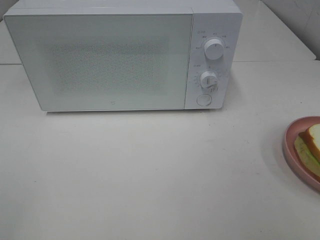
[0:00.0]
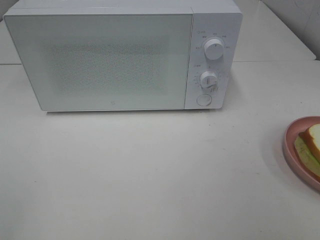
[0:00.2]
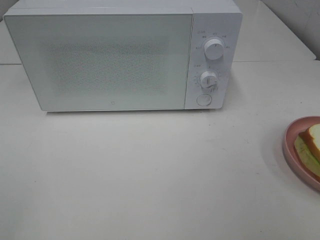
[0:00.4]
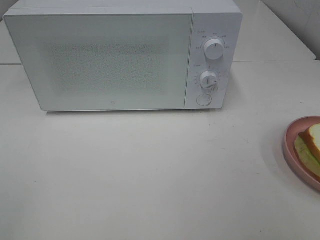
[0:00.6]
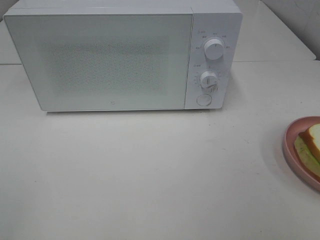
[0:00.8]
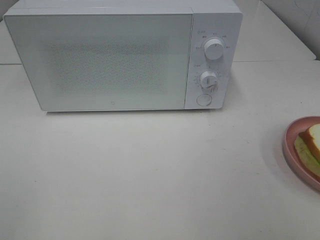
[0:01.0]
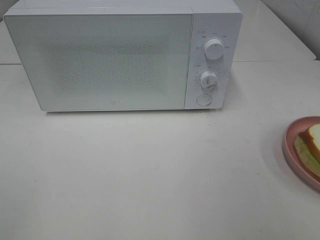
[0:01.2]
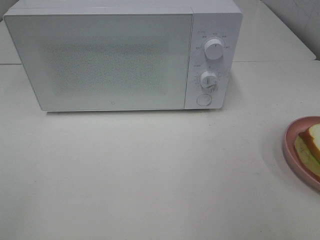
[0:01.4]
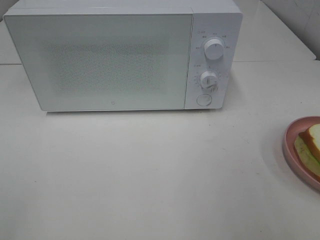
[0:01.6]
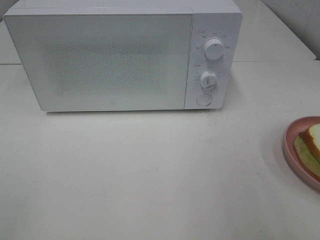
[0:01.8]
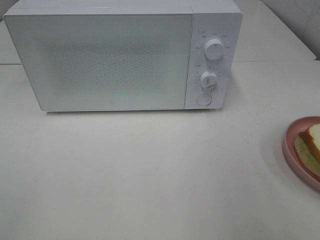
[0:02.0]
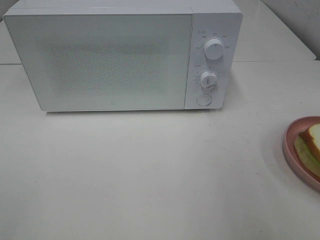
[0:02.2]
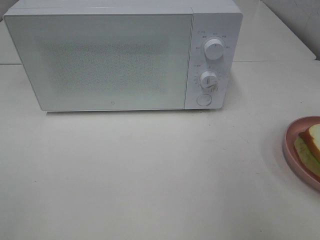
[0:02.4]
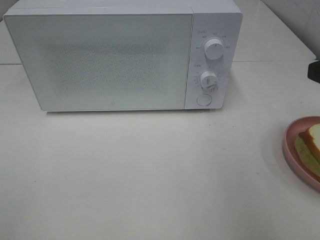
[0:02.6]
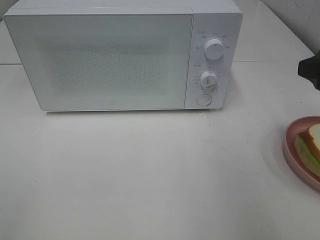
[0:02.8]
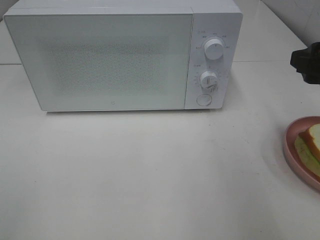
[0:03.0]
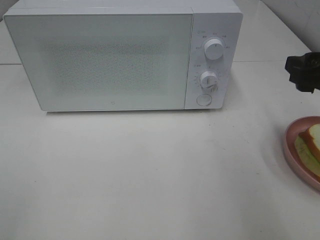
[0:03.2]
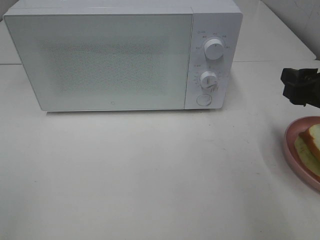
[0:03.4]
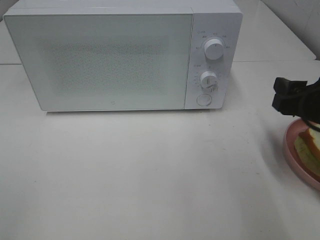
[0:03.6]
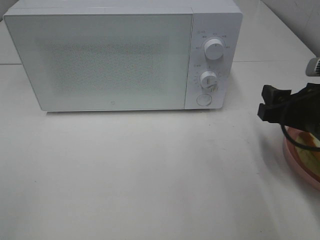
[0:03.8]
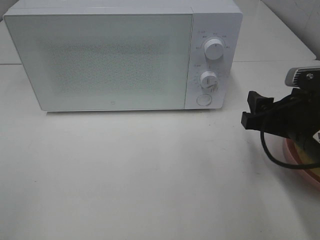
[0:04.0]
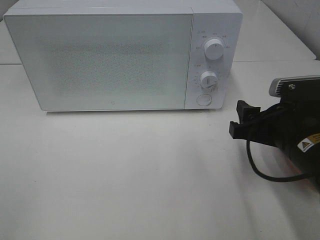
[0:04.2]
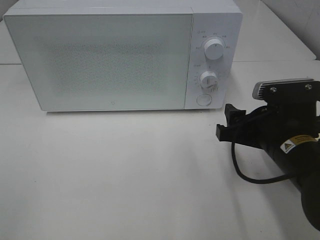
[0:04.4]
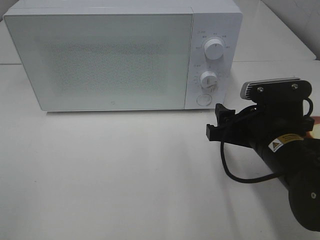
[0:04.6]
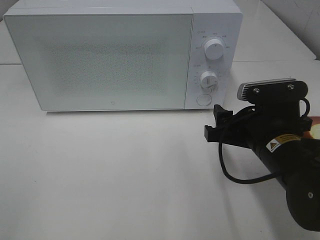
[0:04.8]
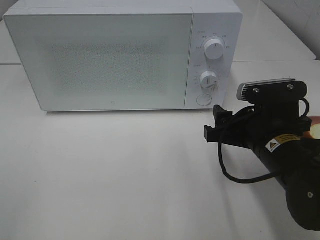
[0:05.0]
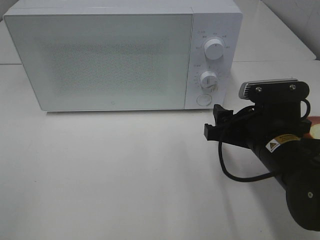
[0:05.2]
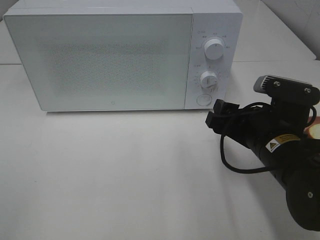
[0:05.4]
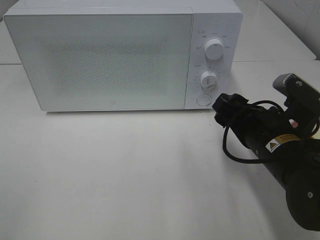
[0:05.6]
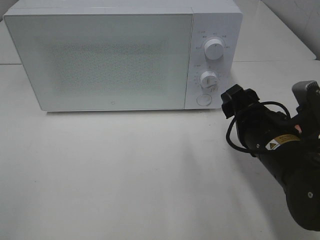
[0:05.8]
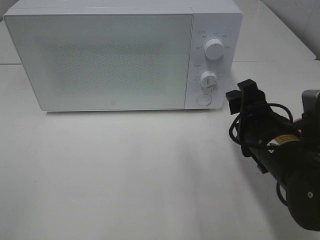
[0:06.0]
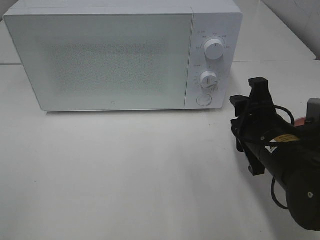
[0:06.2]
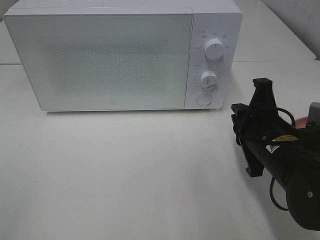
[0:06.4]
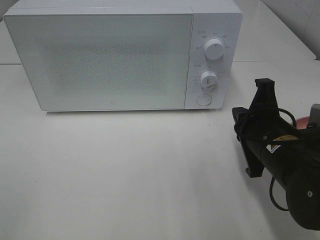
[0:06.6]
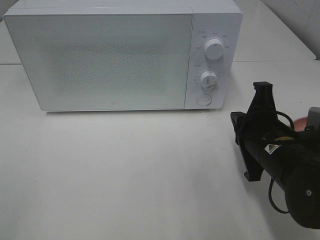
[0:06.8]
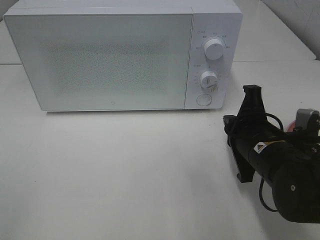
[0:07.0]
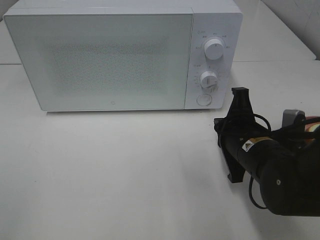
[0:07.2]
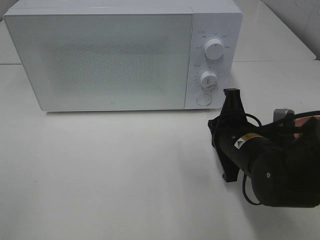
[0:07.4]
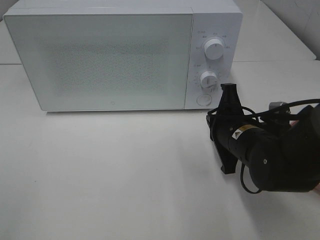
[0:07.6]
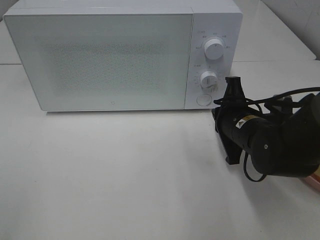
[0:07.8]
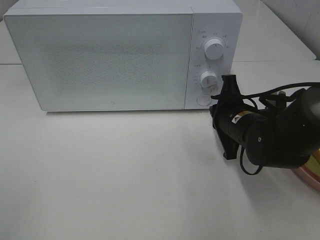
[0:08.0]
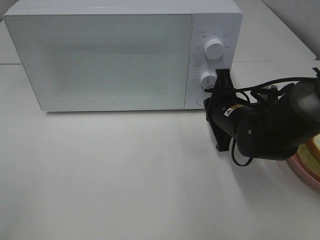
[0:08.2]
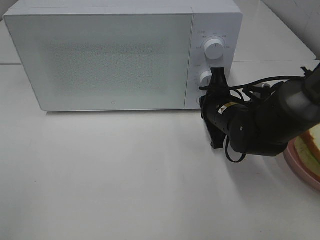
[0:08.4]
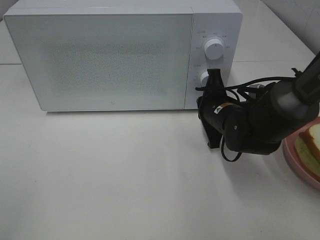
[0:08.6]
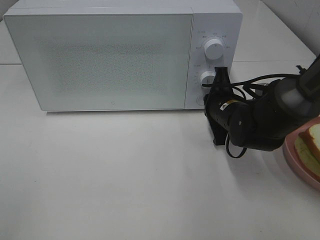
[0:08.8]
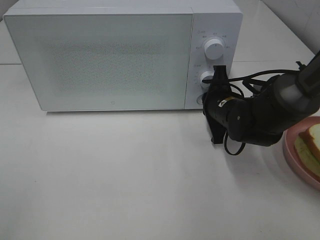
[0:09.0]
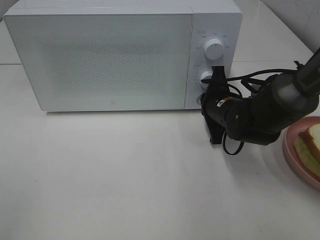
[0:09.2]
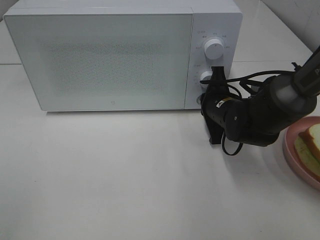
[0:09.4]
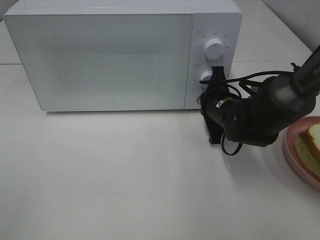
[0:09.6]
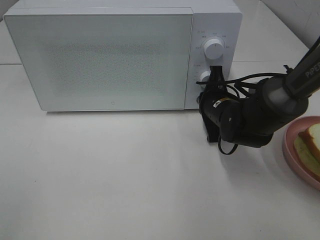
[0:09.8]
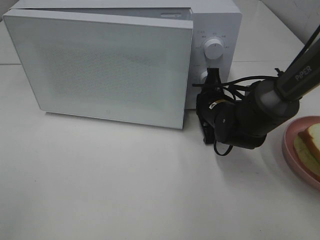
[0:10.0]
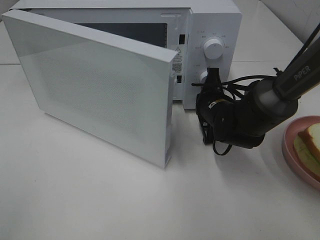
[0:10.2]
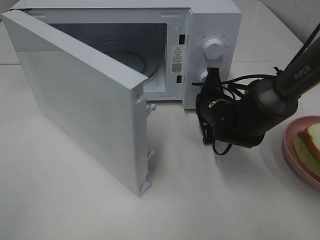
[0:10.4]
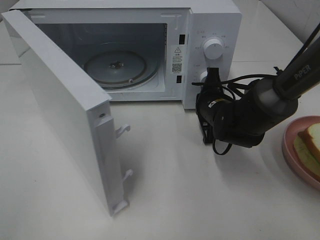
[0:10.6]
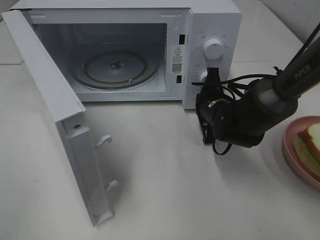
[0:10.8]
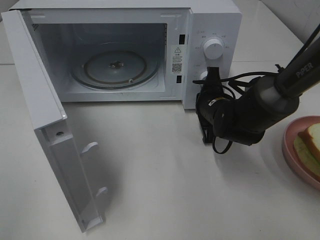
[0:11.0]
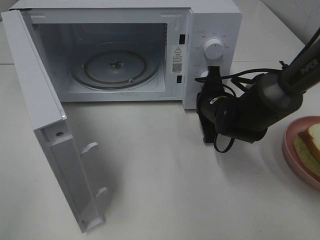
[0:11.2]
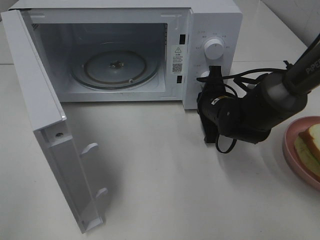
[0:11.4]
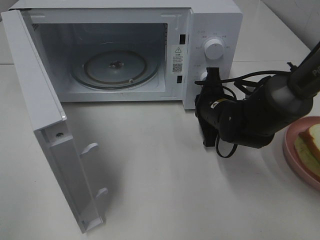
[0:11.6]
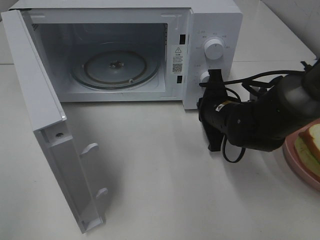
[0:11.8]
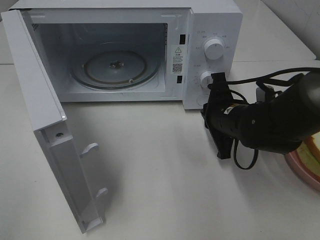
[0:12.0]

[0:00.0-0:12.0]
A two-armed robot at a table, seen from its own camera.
Task of the whole recording: Heat Sandwich.
Step, 0:00.0 to 0:11.8: Right hand: press the switch.
0:01.6 to 0:03.0: The right gripper moves forward and downward, some 15 cm.
0:03.0 to 0:04.4: The right gripper moves downward and to the left, approximately 15 cm.
0:06.0 to 0:07.6: The right gripper ends up some 5 cm from where it was, and closes its fingers.
0:07.6 to 0:09.0: The right gripper goes about 10 cm forward.
0:10.4 to 0:12.0: The right gripper travels backward by some 5 cm.

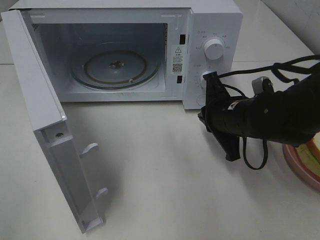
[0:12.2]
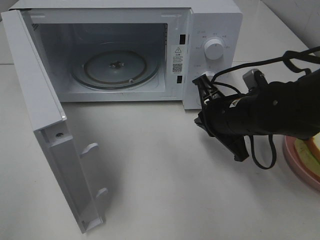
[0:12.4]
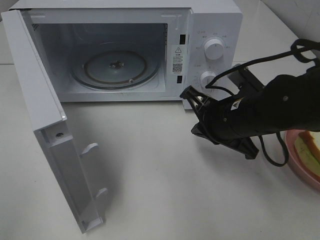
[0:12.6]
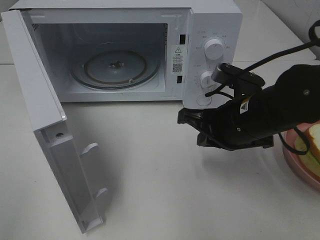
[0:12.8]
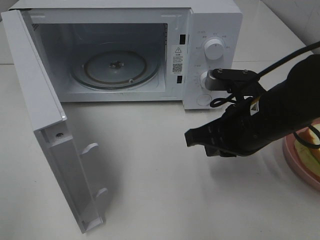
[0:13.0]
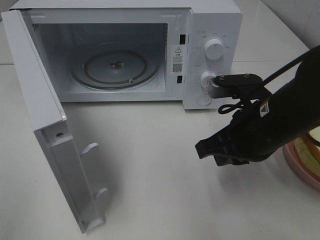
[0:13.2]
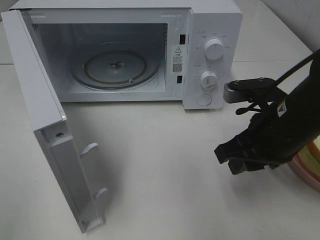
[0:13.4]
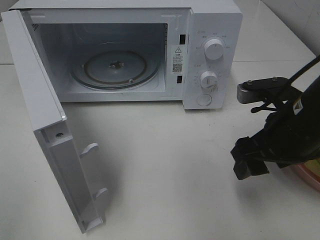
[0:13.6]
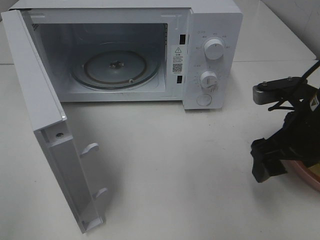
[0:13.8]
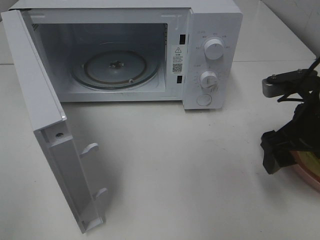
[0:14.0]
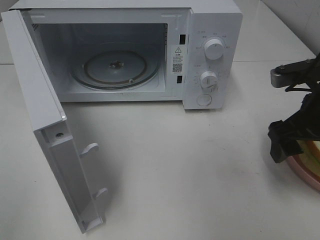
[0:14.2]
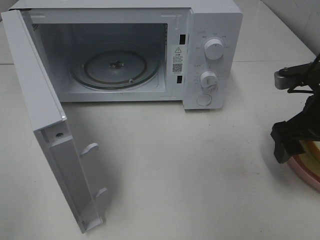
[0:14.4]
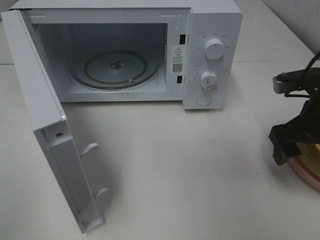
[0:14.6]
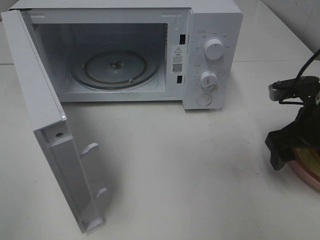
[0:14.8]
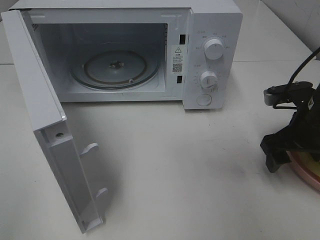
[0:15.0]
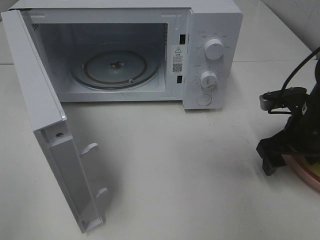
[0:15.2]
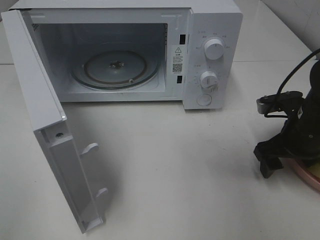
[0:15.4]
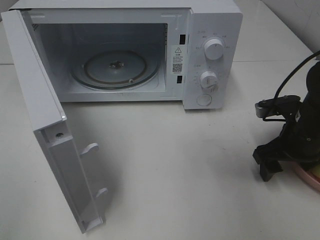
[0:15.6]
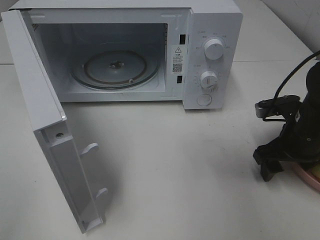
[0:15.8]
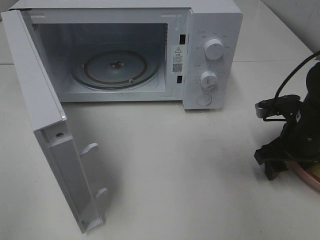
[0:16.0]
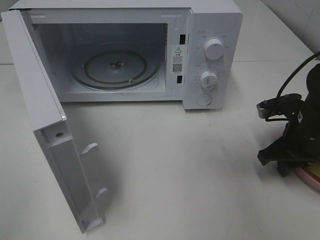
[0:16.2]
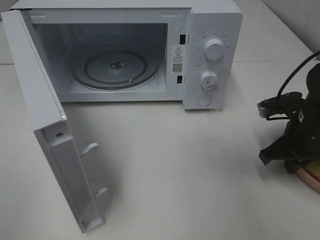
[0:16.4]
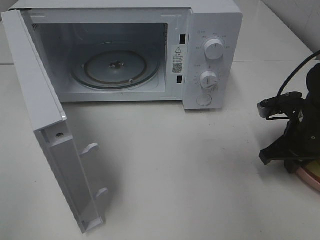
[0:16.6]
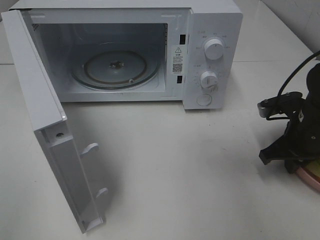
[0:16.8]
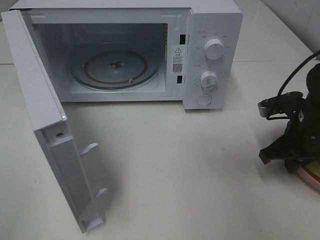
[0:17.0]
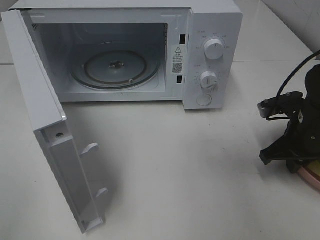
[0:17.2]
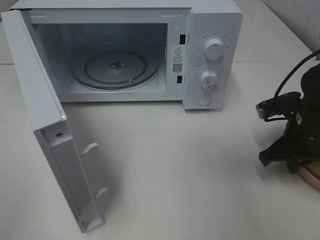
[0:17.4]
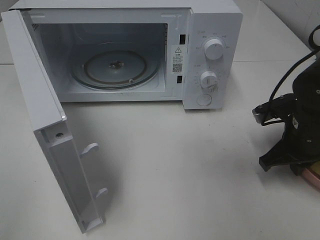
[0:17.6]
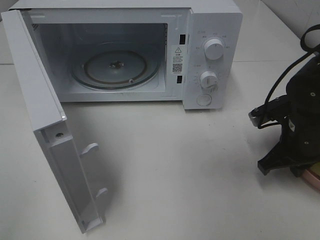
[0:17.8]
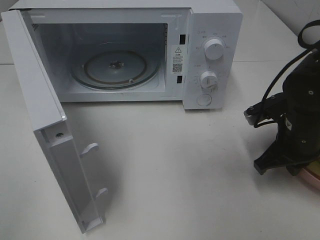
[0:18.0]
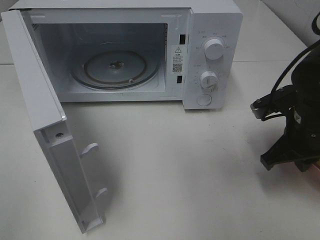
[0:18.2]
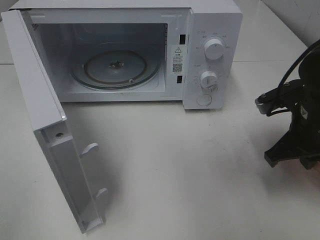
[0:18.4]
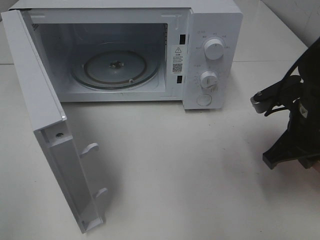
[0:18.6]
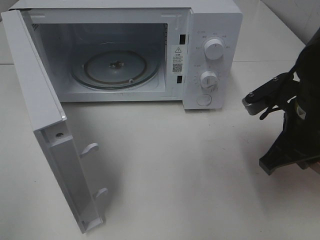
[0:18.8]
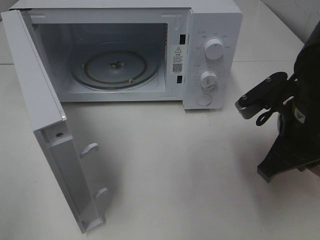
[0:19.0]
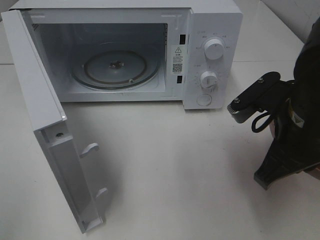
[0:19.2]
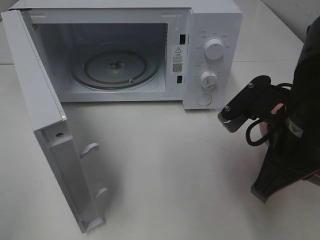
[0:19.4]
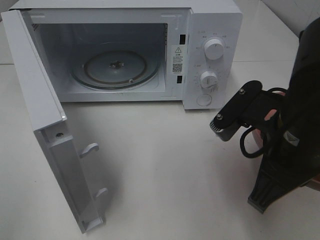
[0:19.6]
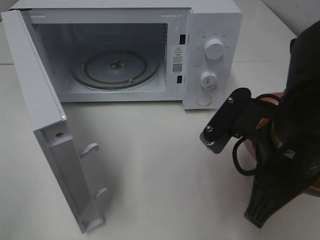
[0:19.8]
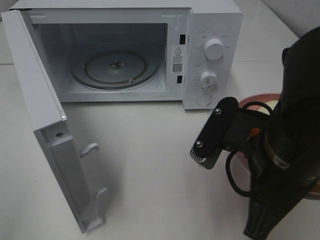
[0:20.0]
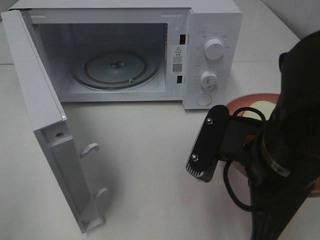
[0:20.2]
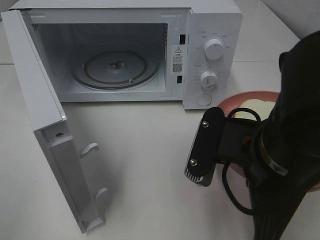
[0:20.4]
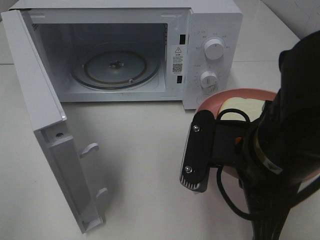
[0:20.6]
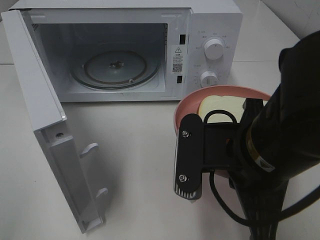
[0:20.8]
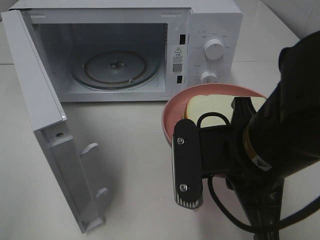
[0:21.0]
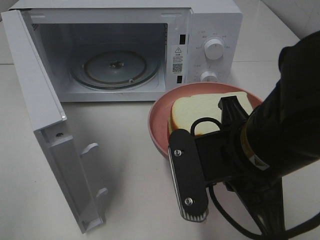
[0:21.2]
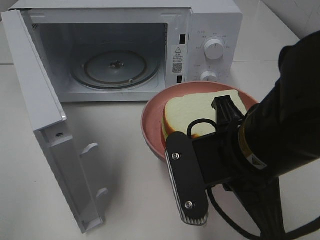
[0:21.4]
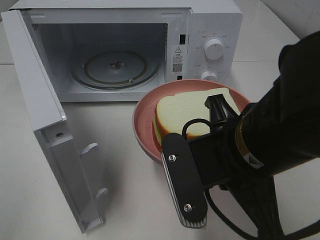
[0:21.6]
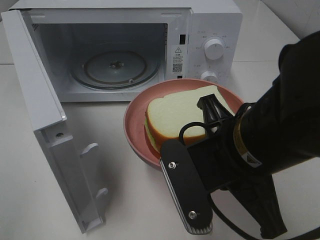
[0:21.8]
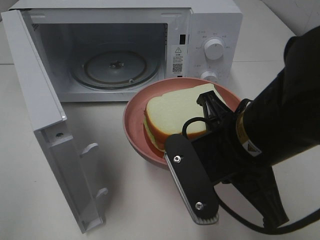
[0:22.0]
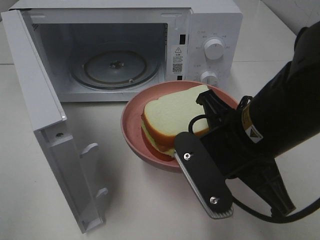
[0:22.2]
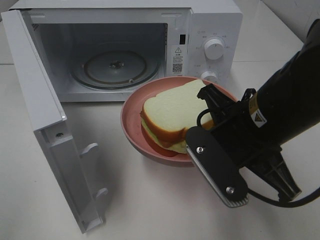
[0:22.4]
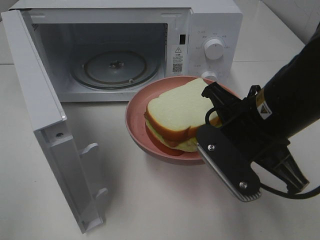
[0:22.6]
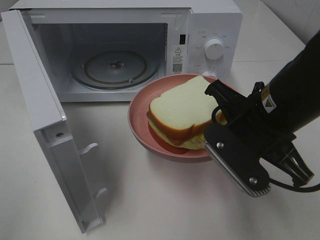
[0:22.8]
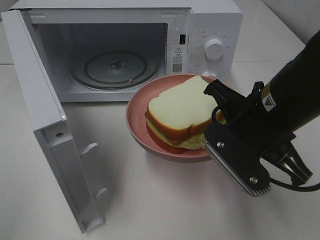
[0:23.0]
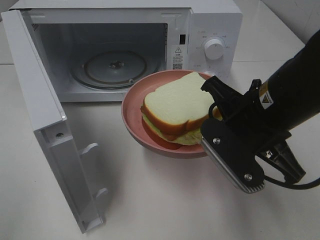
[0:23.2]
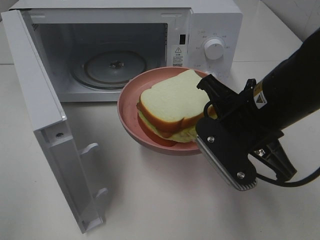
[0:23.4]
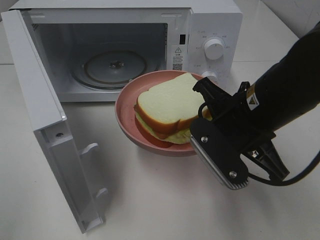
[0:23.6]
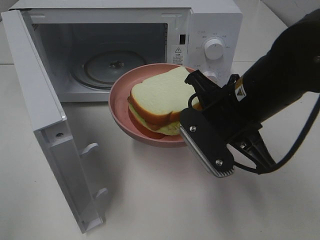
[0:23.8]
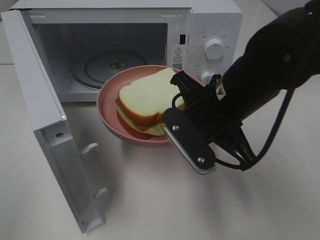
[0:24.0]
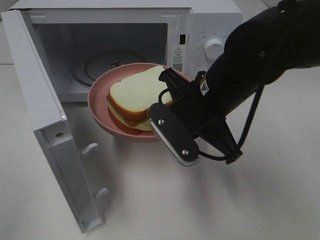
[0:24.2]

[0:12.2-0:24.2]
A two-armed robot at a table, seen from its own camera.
Task of the whole recording: Heat Sandwich.
Step, 0:12.2 to 0:17.0: Right hand: grab the plate with the sandwich.
0:12.2 to 0:13.8: The right gripper goes approximately 10 cm to the right, upward and backward, and opens up.
0:13.8 to 0:15.2: The right gripper moves downward and forward, roughly 10 cm.
0:15.2 to 0:16.6: The right gripper closes.
0:16.6 to 0:18.2: The right gripper moves roughly 5 cm.
0:18.2 to 0:19.8: The right gripper heads backward, to the left and upward, covering approximately 15 cm.
0:21.2 to 0:22.6: The right gripper shifts some 5 cm forward.
0:22.6 to 0:24.2: The right gripper shifts roughly 5 cm forward and to the left.
